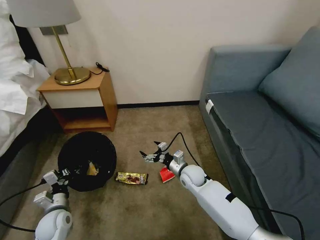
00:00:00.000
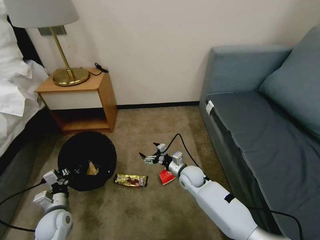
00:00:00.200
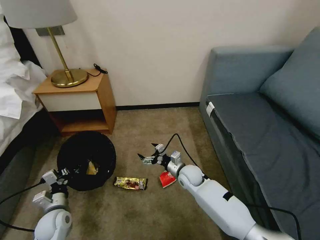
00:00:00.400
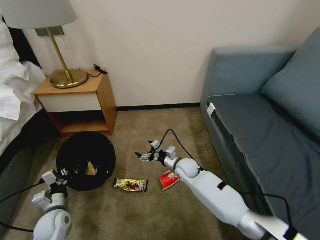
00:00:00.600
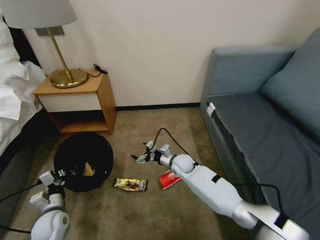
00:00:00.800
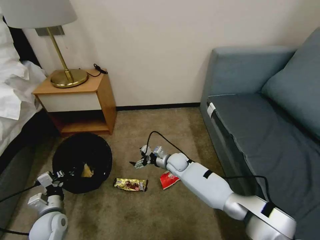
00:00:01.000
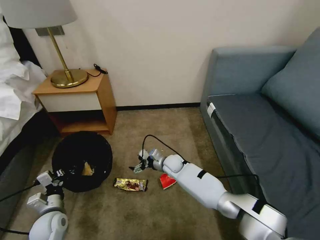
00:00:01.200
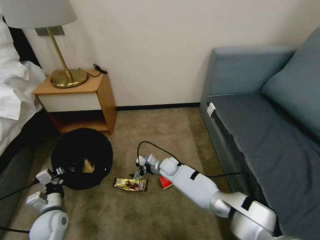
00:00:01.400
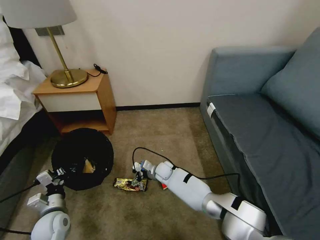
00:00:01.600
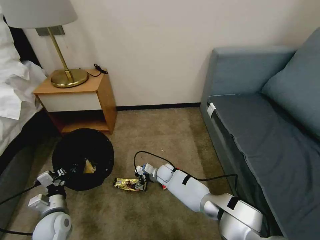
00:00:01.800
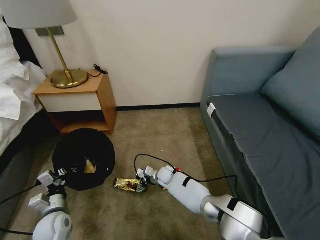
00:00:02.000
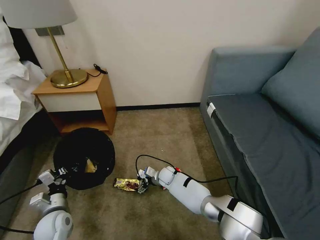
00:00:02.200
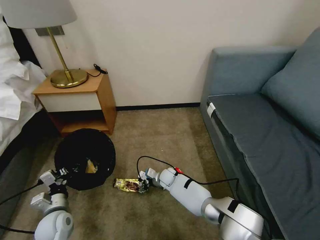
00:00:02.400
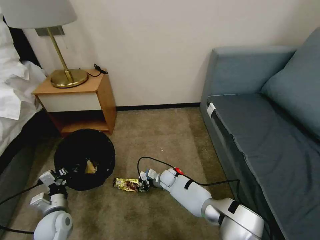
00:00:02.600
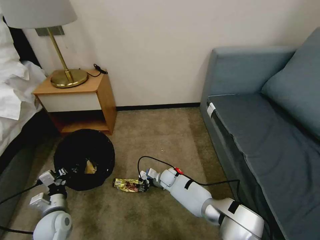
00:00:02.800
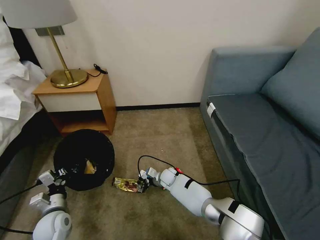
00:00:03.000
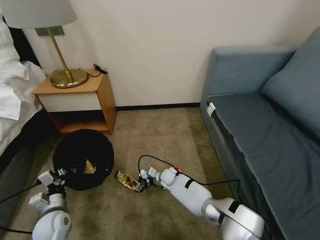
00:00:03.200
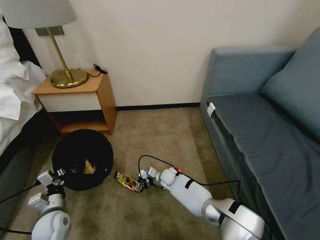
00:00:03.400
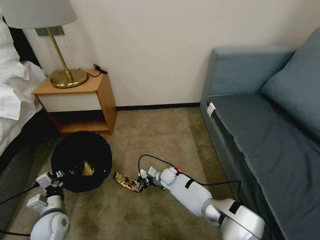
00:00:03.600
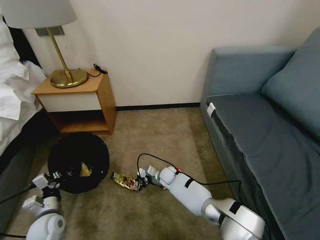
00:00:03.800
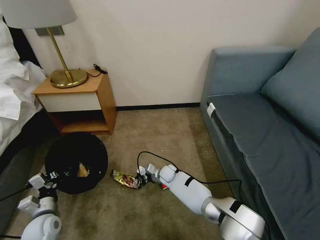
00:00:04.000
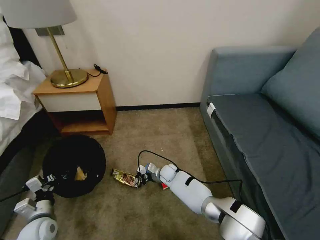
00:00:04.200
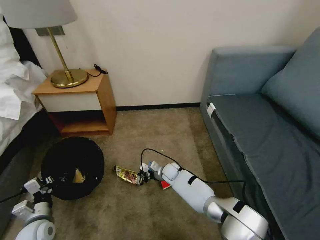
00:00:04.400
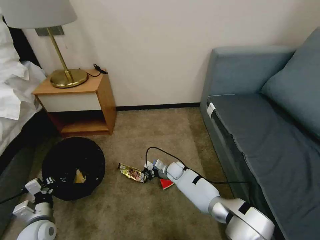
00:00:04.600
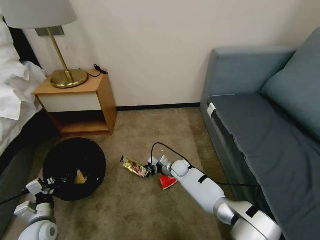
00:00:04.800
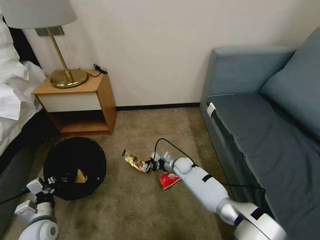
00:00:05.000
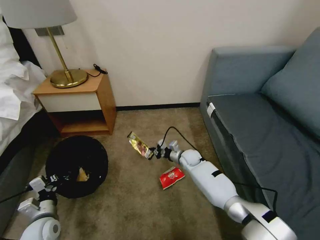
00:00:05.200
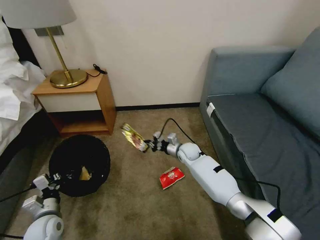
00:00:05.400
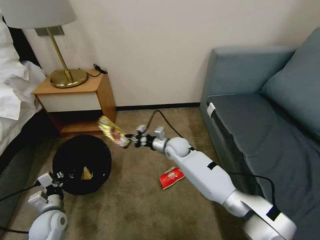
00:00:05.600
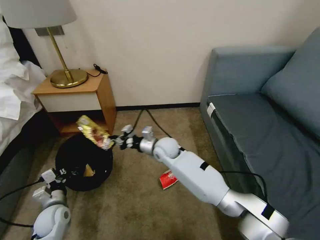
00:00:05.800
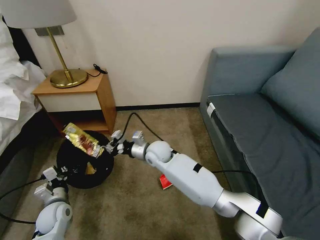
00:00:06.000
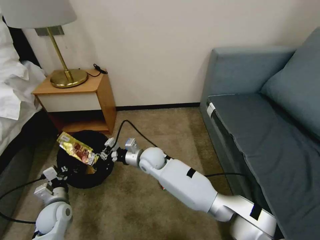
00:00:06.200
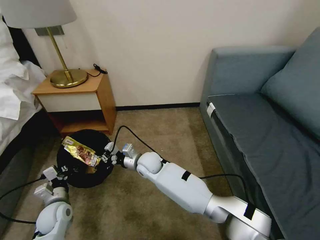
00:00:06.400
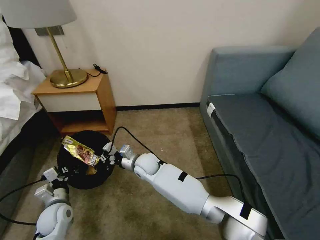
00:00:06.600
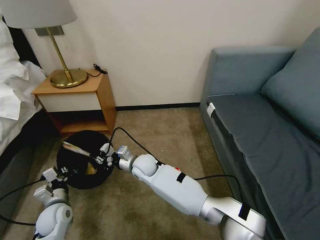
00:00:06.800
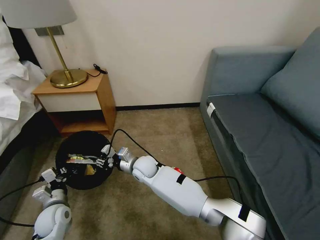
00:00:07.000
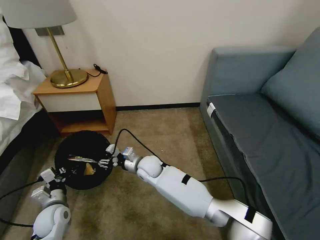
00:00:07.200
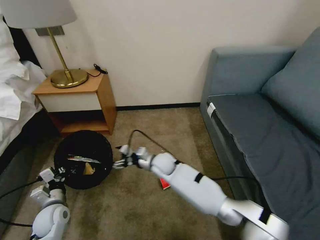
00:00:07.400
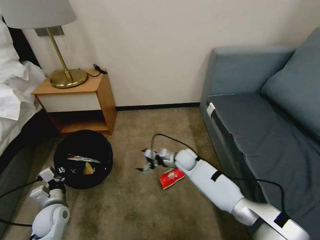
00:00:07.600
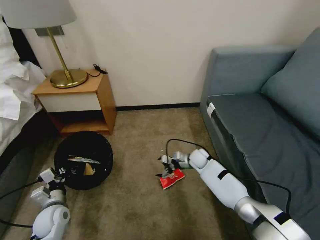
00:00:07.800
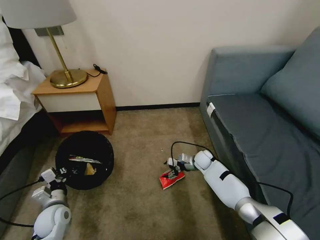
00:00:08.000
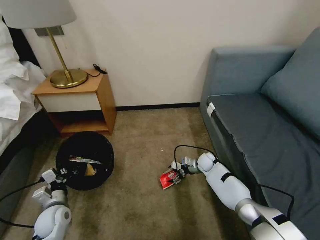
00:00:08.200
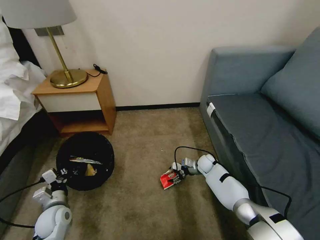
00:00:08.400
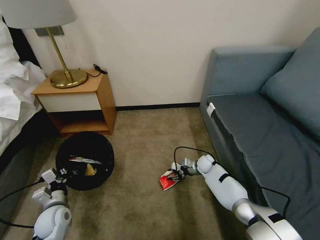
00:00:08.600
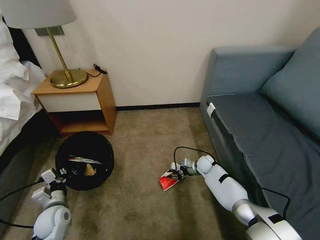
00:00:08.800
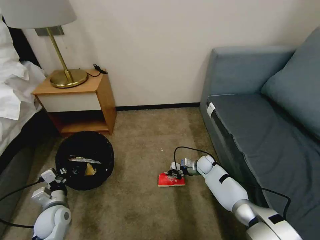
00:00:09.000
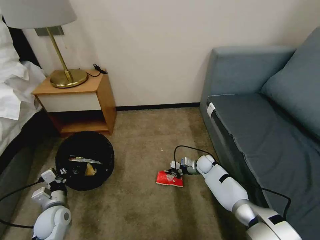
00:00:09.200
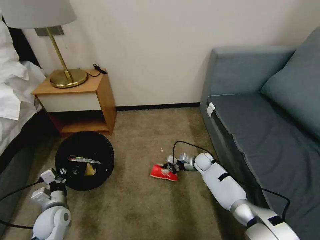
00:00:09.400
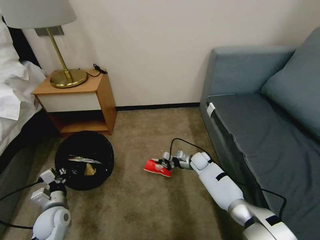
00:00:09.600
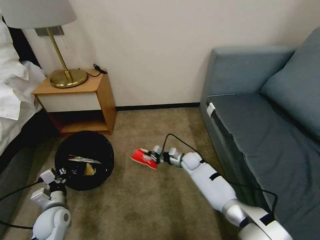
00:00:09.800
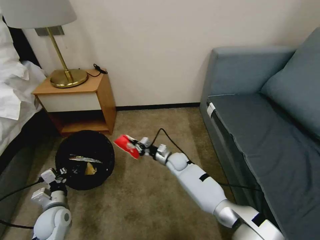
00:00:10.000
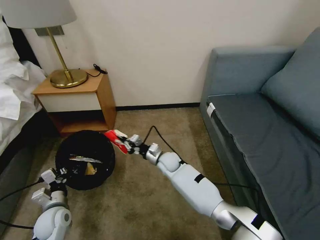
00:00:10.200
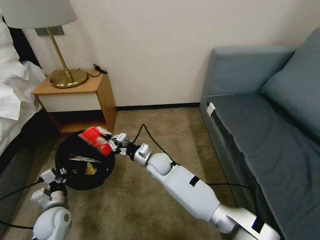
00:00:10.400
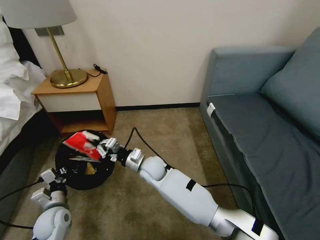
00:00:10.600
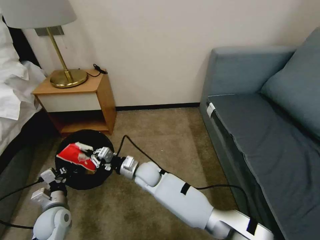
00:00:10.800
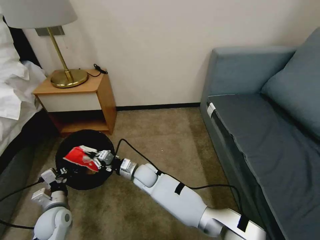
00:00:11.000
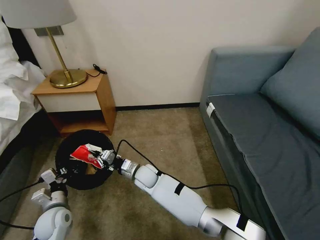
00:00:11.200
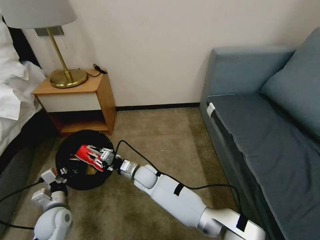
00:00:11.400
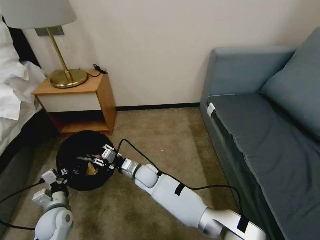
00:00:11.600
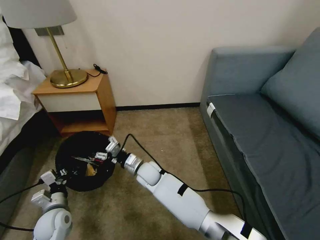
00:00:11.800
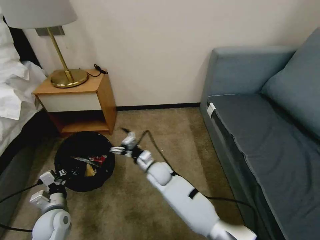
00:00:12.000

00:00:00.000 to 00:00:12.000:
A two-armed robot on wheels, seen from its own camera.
Task of the whole recording: Pick up the trash bin, then pick up the garbage on the floor and place it into the trash bin.
00:00:00.000 to 00:00:01.600: The right gripper heads to the left, downward and forward, covering about 15 cm.
00:00:01.600 to 00:00:03.000: The right gripper moves about 5 cm, and closes.
00:00:03.000 to 00:00:04.400: The left gripper ends up about 5 cm from where it was.
00:00:04.400 to 00:00:06.000: The left gripper goes some 5 cm forward. Meanwhile the right gripper heads upward, covering some 20 cm.
00:00:06.000 to 00:00:07.600: The right gripper travels to the right and downward by some 15 cm, and opens.
00:00:07.600 to 00:00:09.000: The right gripper heads to the right and downward, covering approximately 15 cm, and closes.
00:00:09.000 to 00:00:10.400: The right gripper goes approximately 25 cm to the left and upward.
00:00:10.400 to 00:00:12.000: The right gripper opens its fingers.

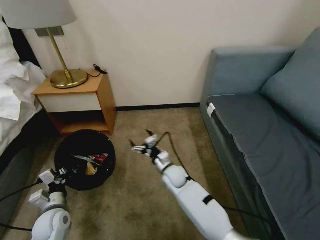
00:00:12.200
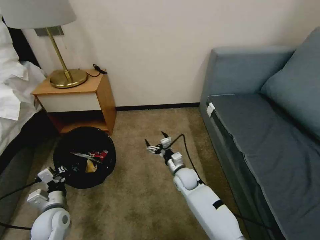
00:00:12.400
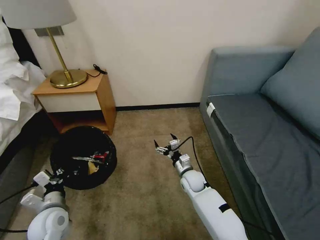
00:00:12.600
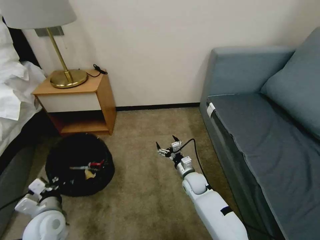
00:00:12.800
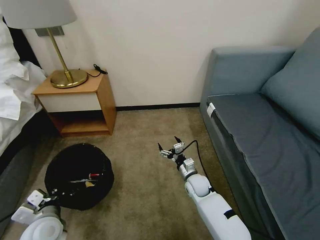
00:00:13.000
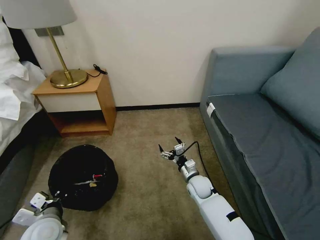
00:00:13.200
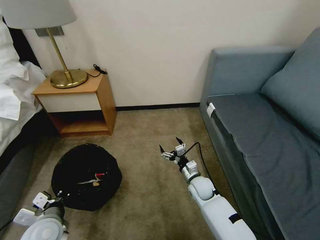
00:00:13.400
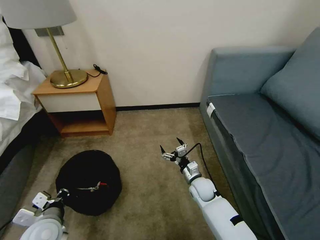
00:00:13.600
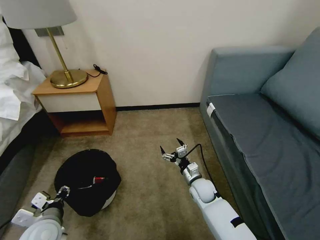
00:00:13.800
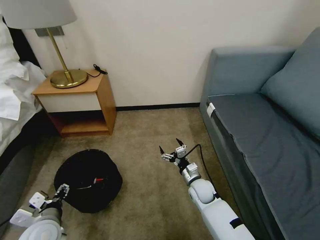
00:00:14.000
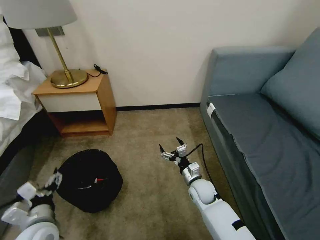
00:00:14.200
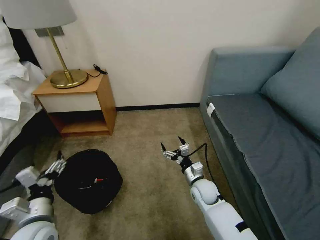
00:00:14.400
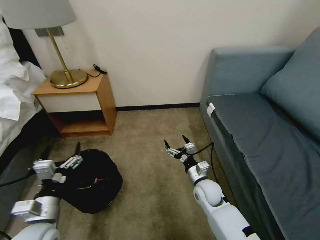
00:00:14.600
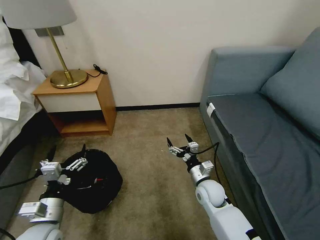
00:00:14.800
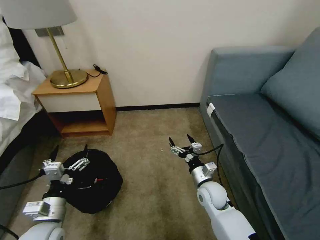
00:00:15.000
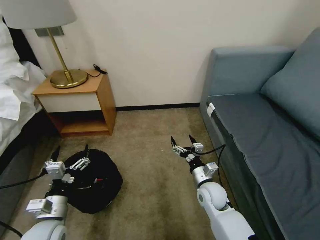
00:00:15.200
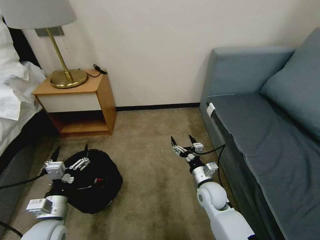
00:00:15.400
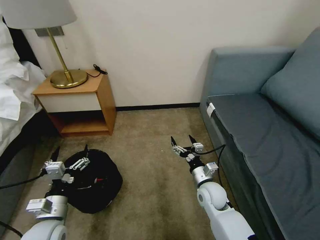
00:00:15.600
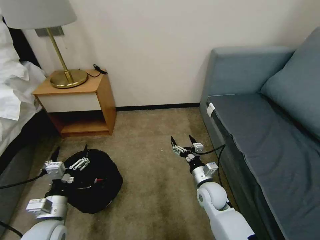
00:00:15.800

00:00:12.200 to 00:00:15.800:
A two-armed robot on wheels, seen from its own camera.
Task of the whole recording: Pick up the trash bin, then pick up the garbage on the floor and place it into the trash bin.
00:00:12.200 to 00:00:14.000: The right gripper is displaced to the right by roughly 10 cm; the left gripper travels upward and backward by about 10 cm, and opens its fingers.
00:00:14.000 to 00:00:15.800: The right gripper is displaced upward by roughly 5 cm.
